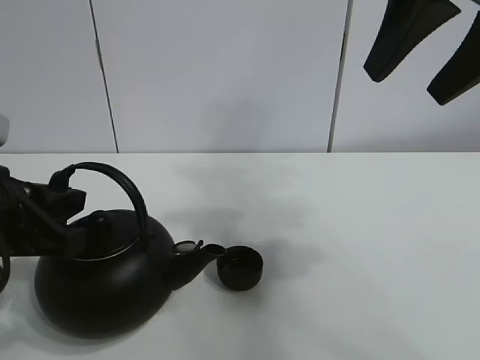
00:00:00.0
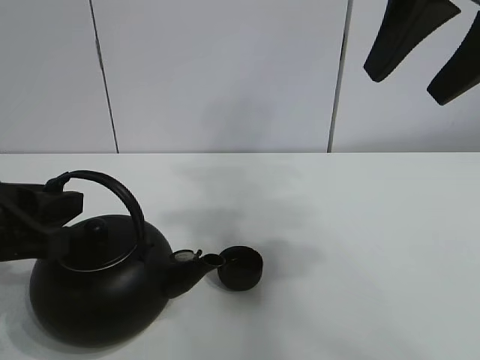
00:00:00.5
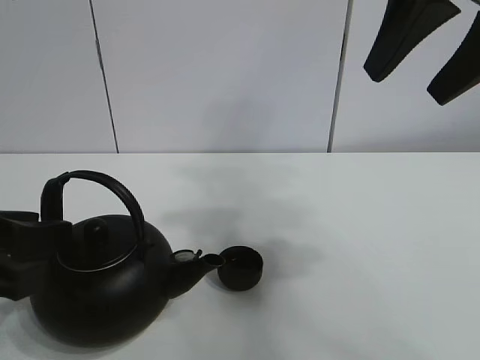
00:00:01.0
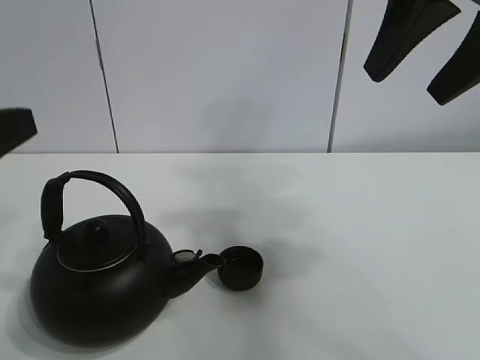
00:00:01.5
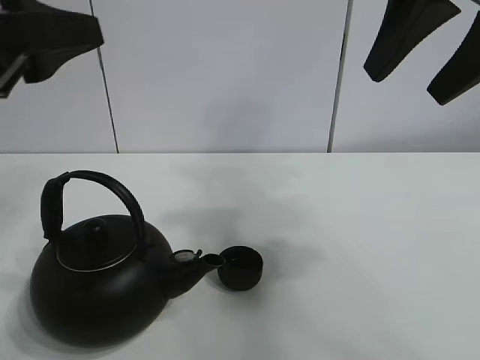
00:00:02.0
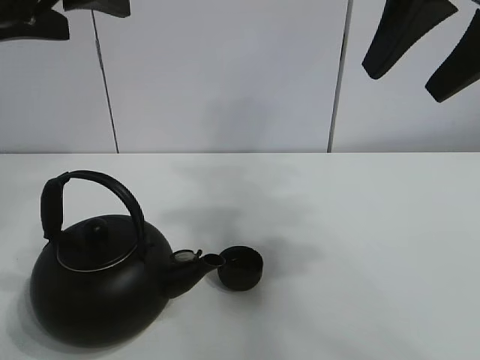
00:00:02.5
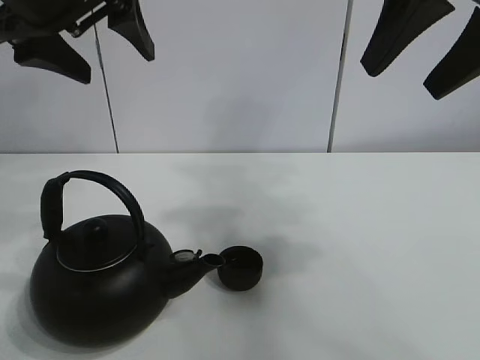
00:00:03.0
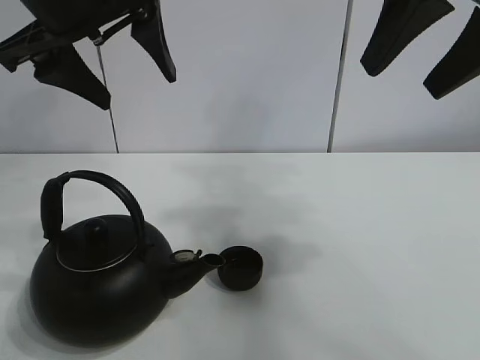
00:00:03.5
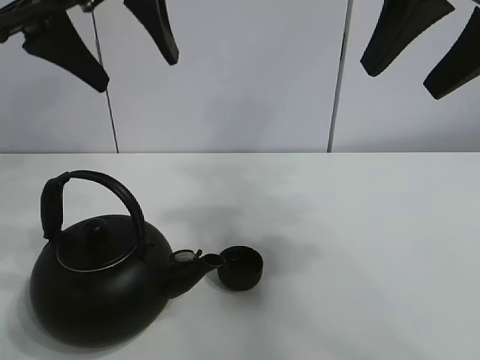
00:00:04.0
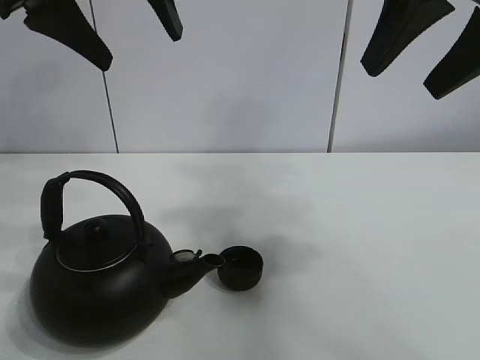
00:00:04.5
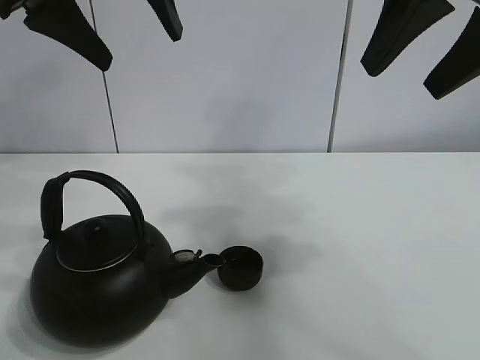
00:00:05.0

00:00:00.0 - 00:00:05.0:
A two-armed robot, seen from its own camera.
Task of the whole recording: pour tea into the teacup.
00:00:00.0 - 00:00:02.5: The left gripper shifts approximately 15 cm upward, and opens its fingers.
00:00:02.5 - 00:00:05.0: The left gripper ends up roughly 10 cm from where it was.

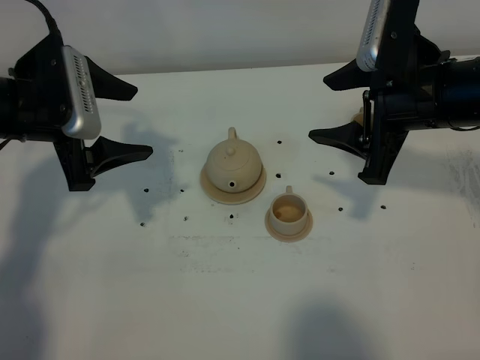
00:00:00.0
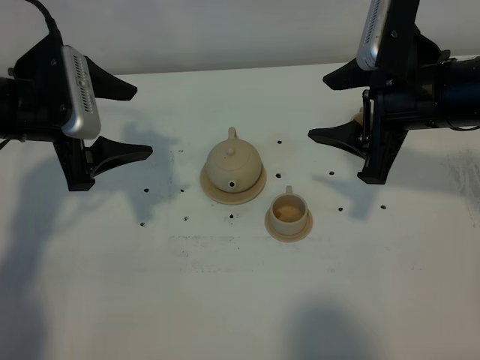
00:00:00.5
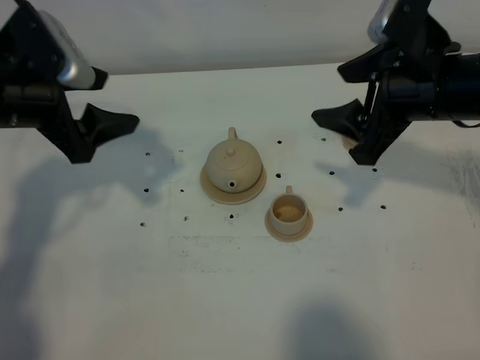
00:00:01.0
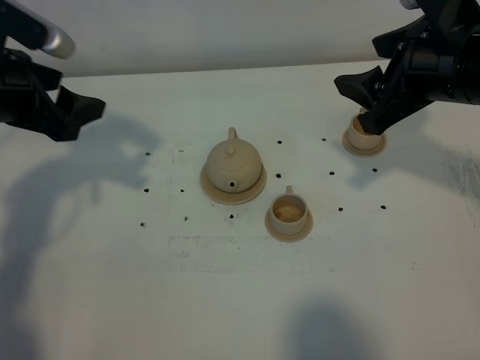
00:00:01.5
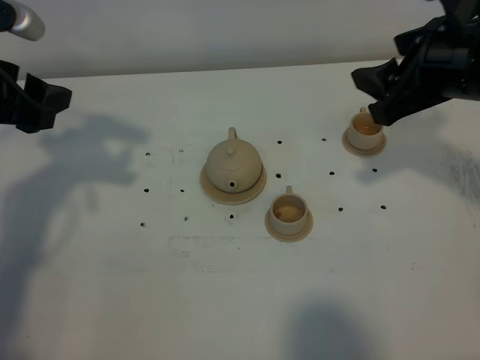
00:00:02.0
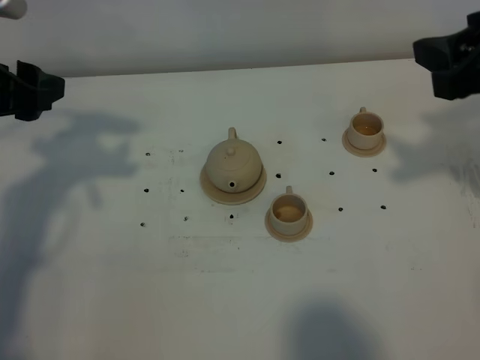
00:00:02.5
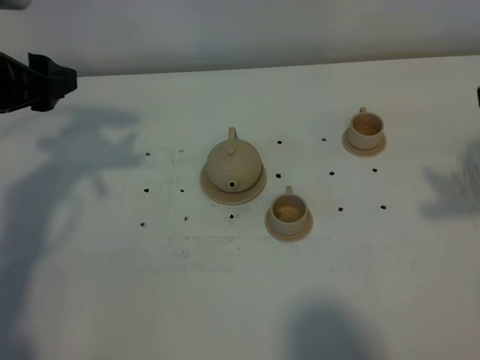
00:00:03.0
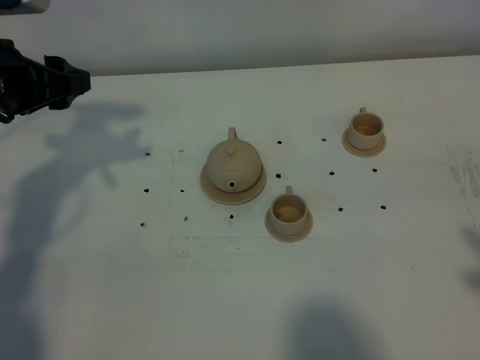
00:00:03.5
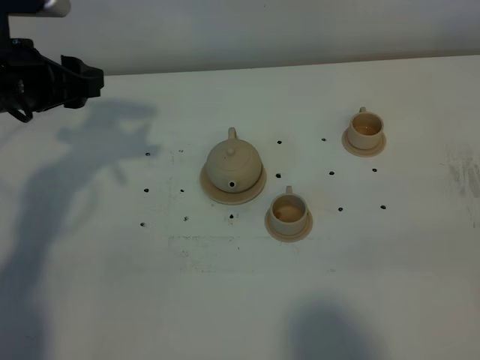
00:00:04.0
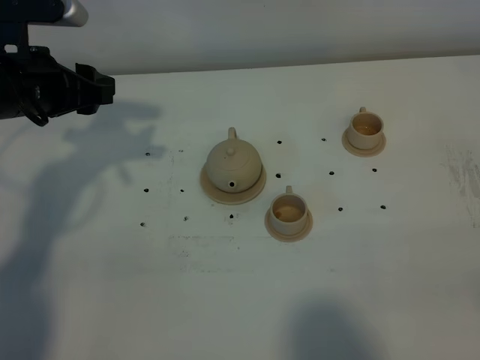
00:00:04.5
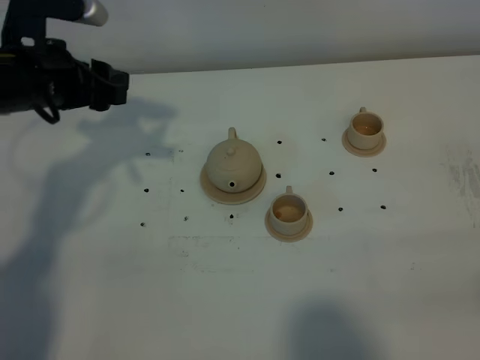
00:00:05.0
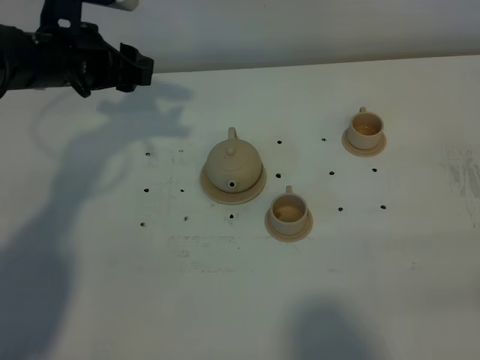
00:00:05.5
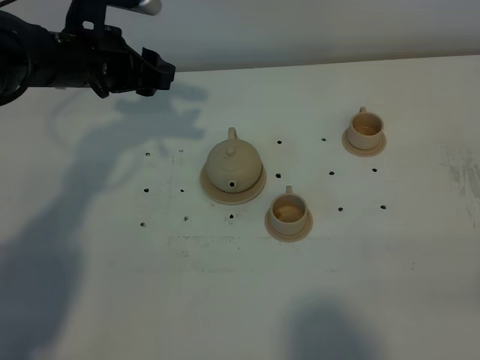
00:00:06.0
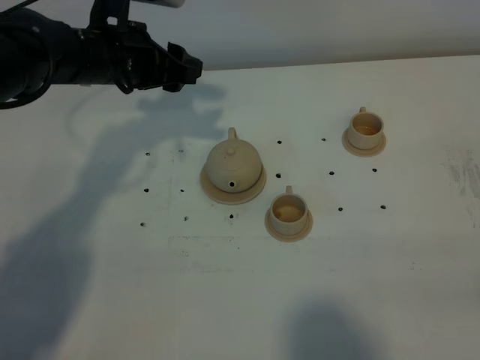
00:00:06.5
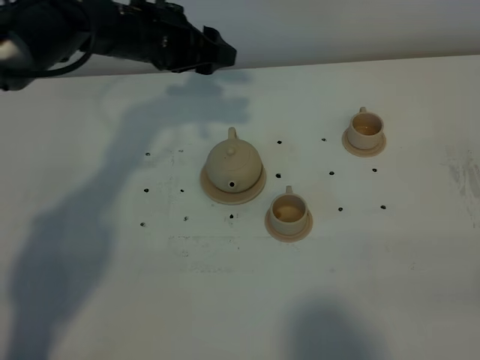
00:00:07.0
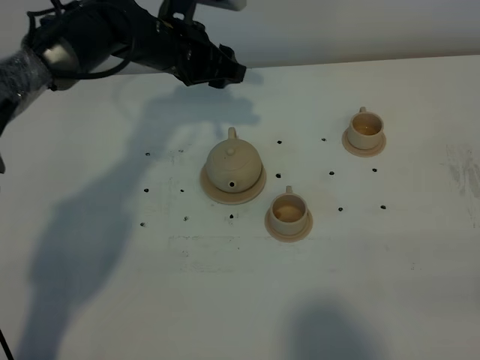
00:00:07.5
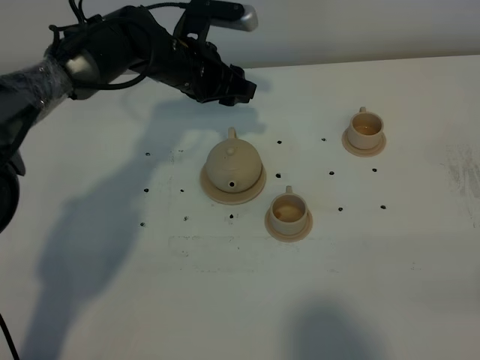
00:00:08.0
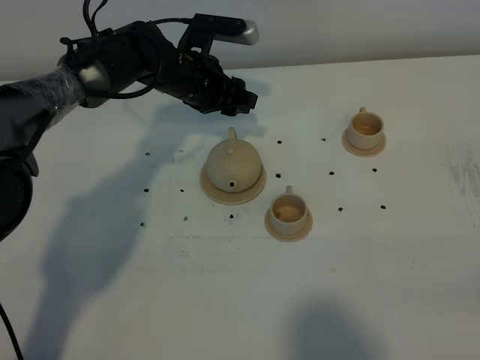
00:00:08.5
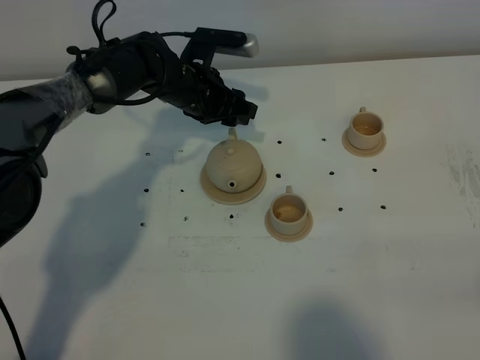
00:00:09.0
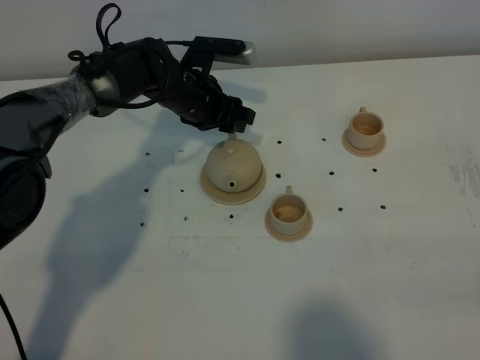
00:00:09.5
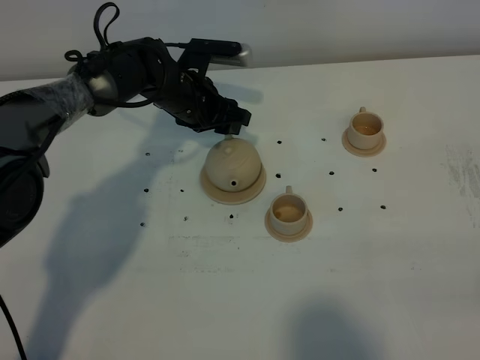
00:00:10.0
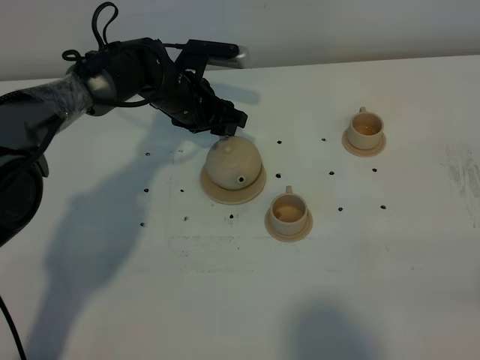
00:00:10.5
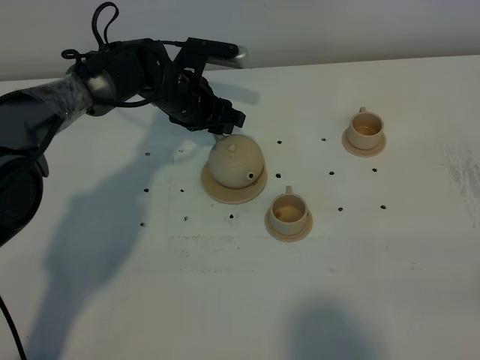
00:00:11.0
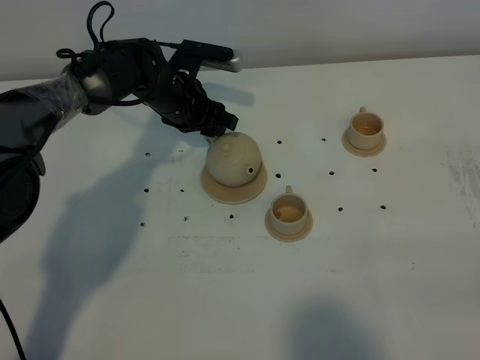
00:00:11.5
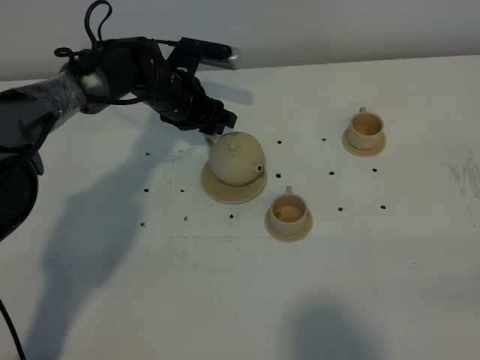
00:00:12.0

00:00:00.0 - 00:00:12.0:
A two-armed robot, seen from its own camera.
Task of the whole recording: grasp the brown teapot and pour the tea into the two brown teacups one by one, put the brown teapot back in its original place.
00:00:00.0 - 00:00:02.0: The left gripper is displaced upward by about 5 cm.
00:00:02.0 - 00:00:04.0: The left gripper shifts by approximately 5 cm. Meanwhile the right gripper goes roughly 25 cm backward, and closes up.
00:00:04.0 - 00:00:06.0: The left gripper travels forward and to the right by some 10 cm, while the right gripper is displaced downward by roughly 5 cm.
00:00:06.0 - 00:00:08.0: The left gripper travels to the right, downward and forward by some 15 cm.
00:00:08.0 - 00:00:10.0: The left gripper moves downward, approximately 5 cm.
00:00:10.0 - 00:00:12.0: There are only small adjustments of the grippers.

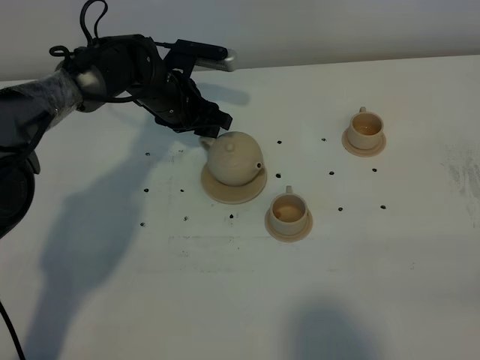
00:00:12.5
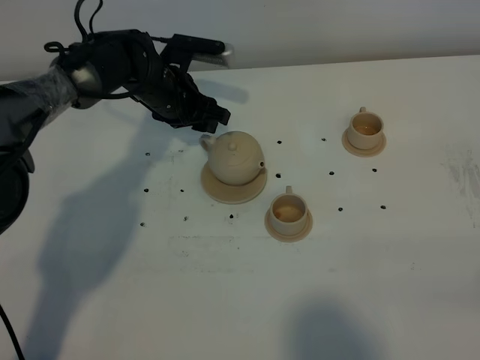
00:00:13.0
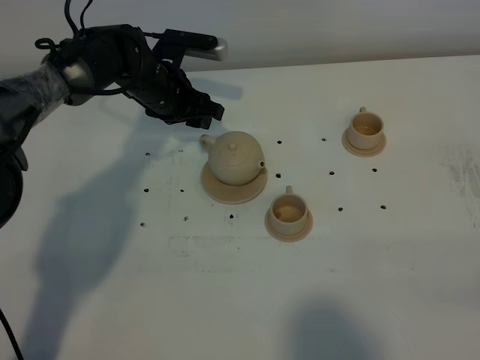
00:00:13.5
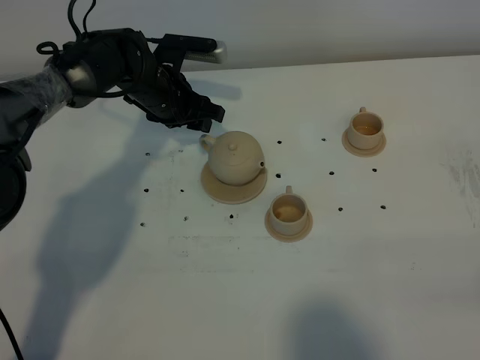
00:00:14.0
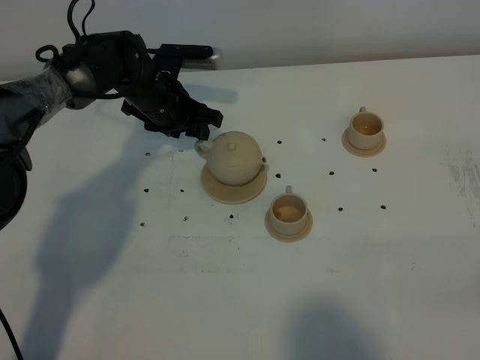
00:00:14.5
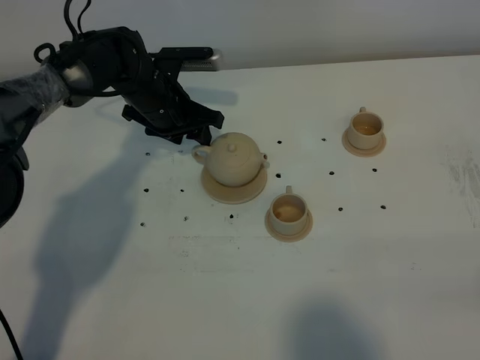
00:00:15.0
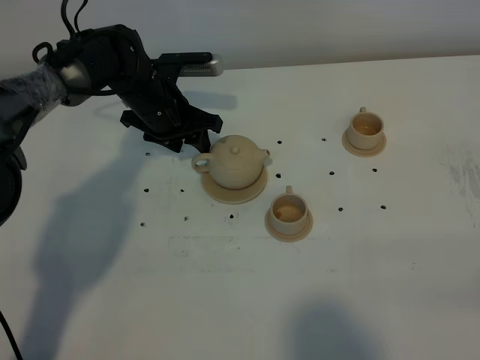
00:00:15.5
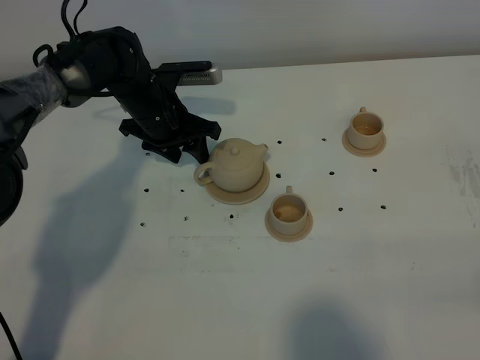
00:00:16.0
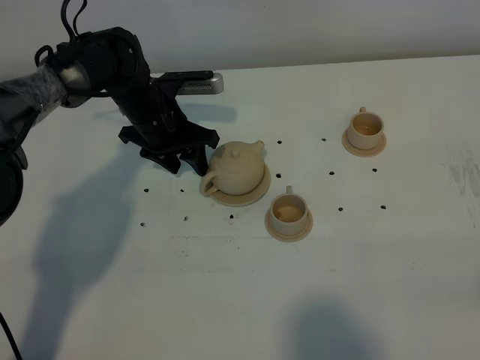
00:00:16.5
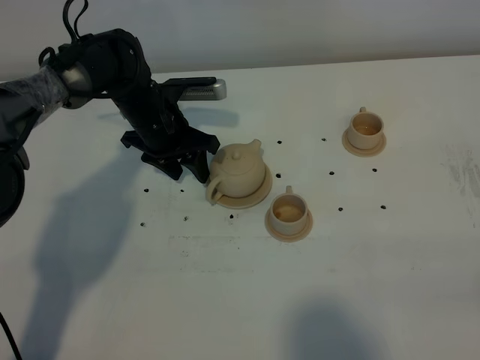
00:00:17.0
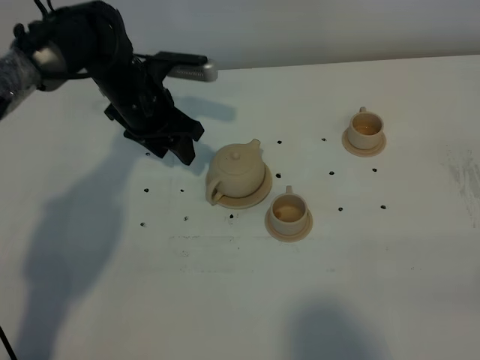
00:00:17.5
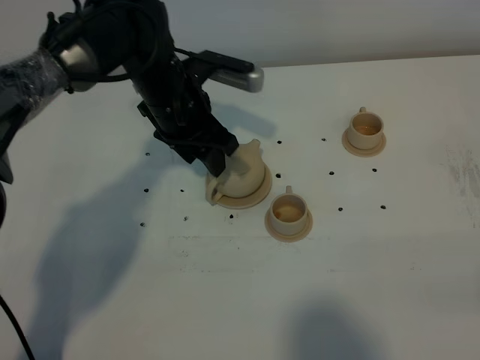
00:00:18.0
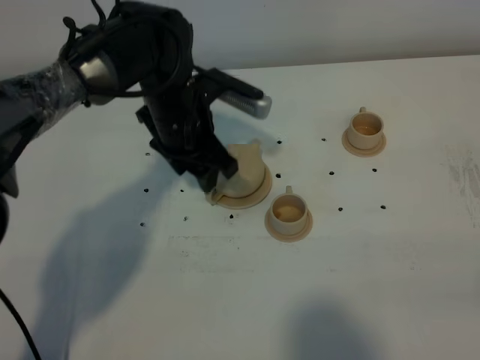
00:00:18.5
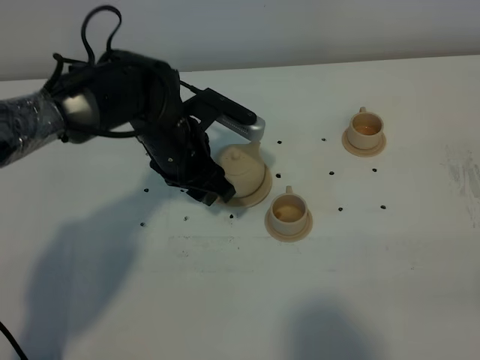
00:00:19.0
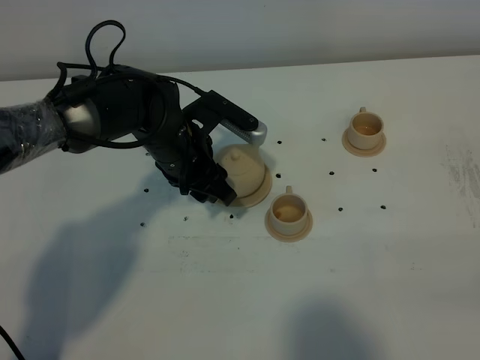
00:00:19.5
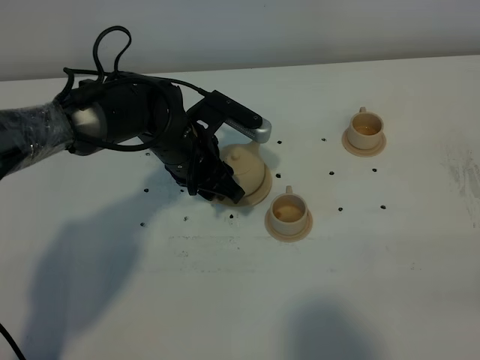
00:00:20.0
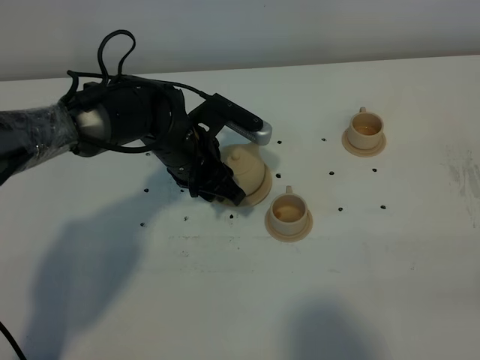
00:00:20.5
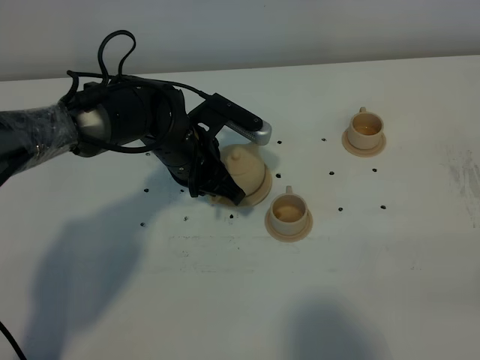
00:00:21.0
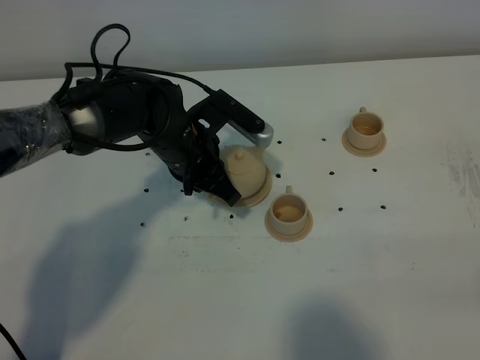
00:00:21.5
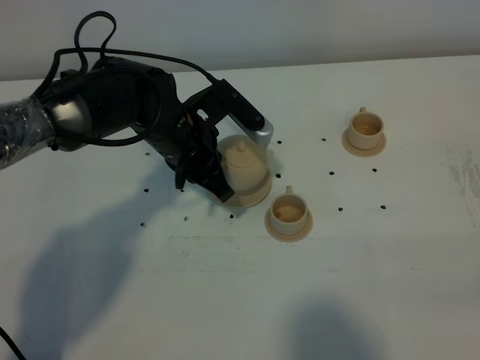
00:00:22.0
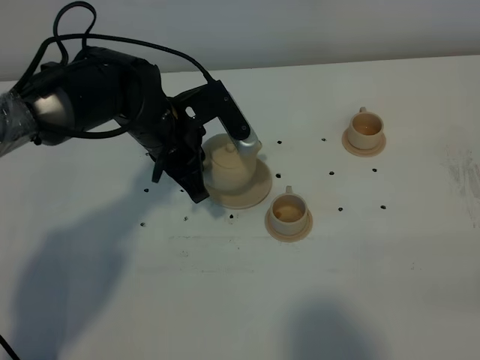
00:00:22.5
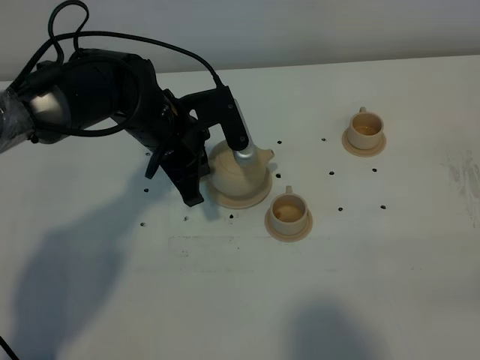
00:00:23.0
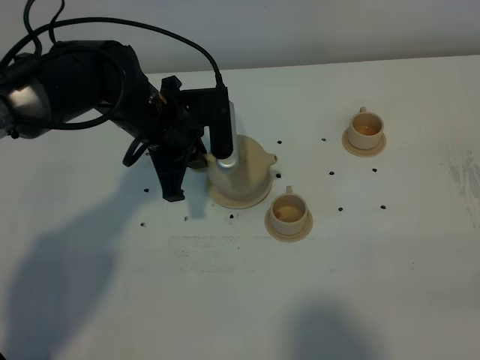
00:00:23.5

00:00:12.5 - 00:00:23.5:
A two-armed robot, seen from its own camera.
Task of the whole recording: grasp the brown teapot and pour the tea into the two brown teacups one by one, put the brown teapot back in its original place.
Step, 00:00:12.5 - 00:00:21.0: Pick up the teapot with the left gripper.
00:00:12.5 - 00:00:16.0: The grippers move only a little.
00:00:16.0 - 00:00:18.0: The left gripper shifts approximately 10 cm upward, backward and to the right.
00:00:18.0 - 00:00:20.0: The left gripper goes approximately 5 cm downward.
00:00:20.0 - 00:00:21.5: The left gripper closes up.
00:00:21.5 - 00:00:23.5: The left gripper changes place by some 5 cm.
